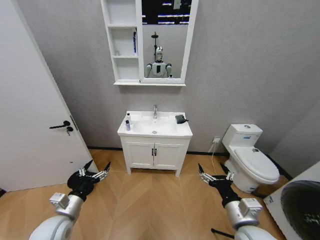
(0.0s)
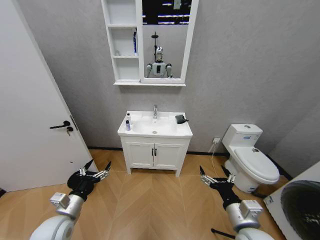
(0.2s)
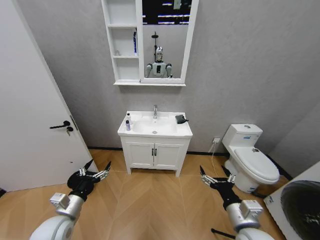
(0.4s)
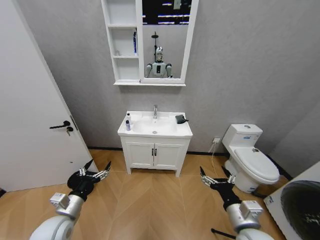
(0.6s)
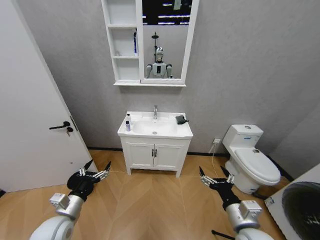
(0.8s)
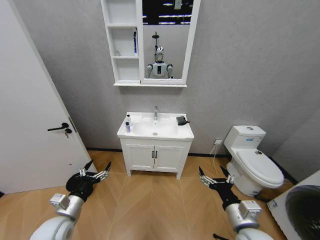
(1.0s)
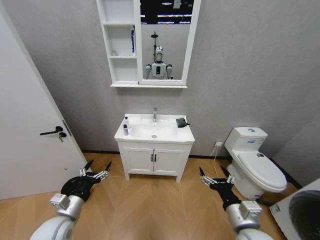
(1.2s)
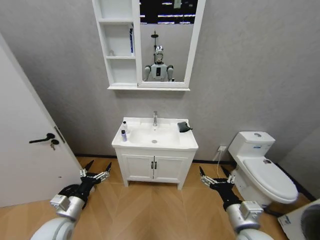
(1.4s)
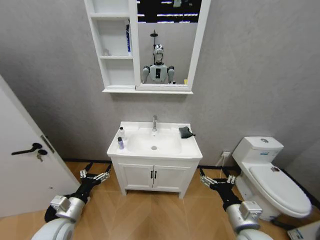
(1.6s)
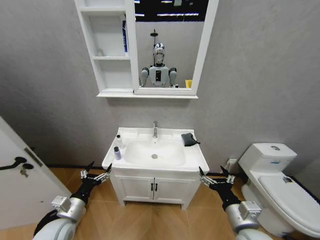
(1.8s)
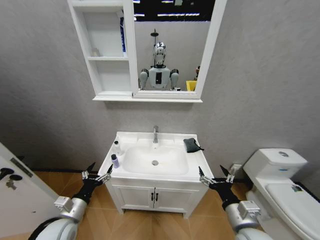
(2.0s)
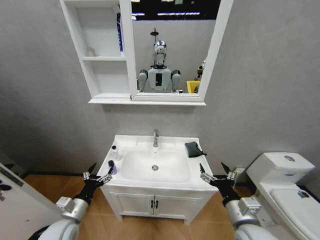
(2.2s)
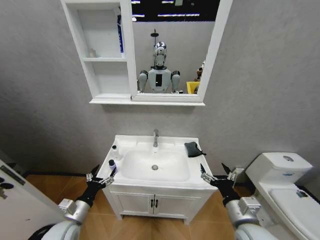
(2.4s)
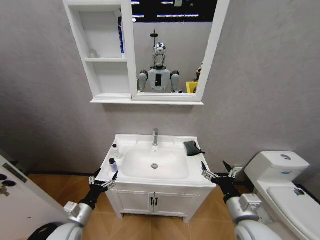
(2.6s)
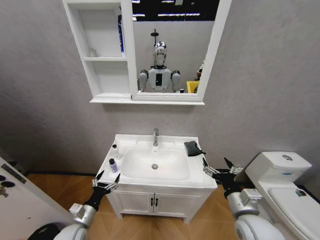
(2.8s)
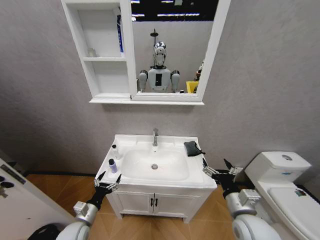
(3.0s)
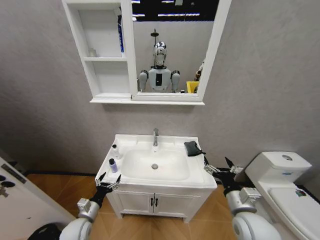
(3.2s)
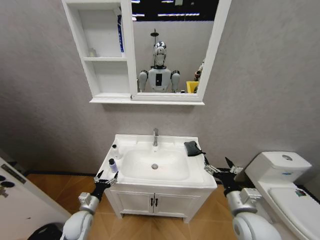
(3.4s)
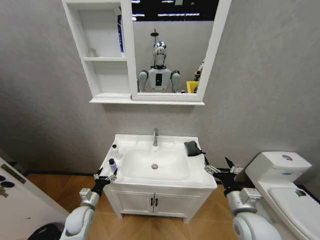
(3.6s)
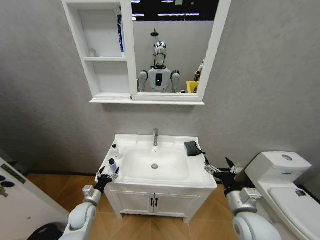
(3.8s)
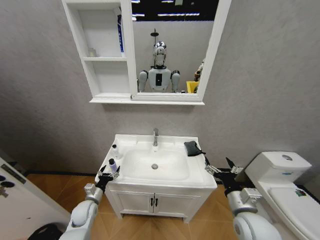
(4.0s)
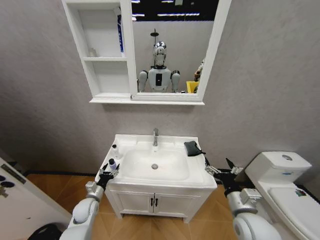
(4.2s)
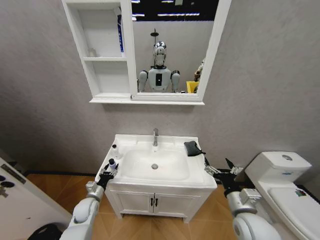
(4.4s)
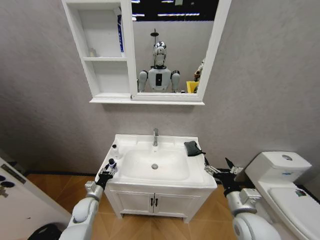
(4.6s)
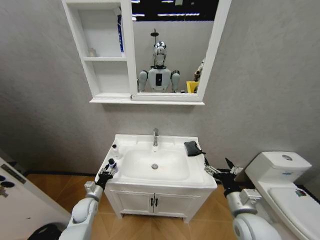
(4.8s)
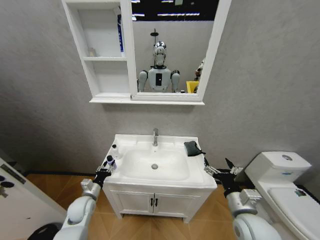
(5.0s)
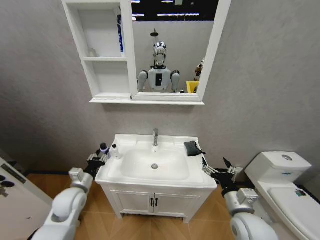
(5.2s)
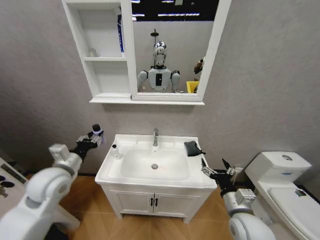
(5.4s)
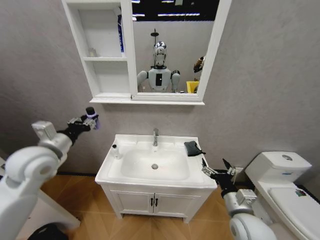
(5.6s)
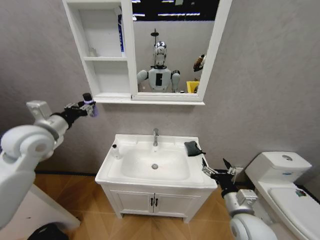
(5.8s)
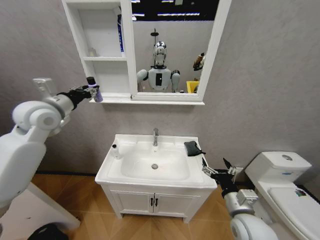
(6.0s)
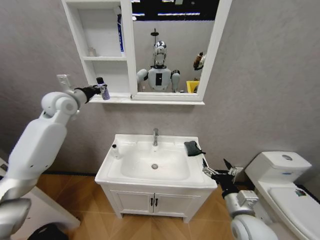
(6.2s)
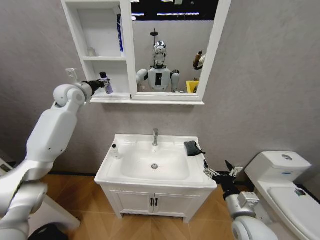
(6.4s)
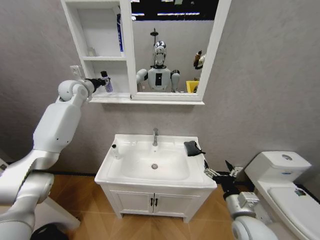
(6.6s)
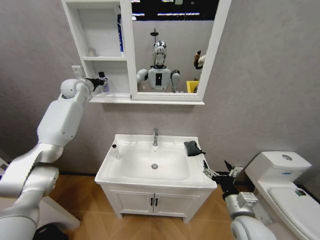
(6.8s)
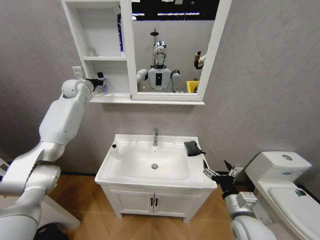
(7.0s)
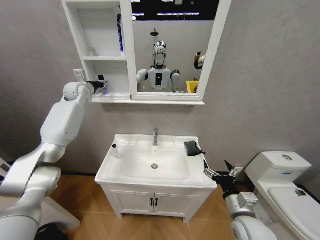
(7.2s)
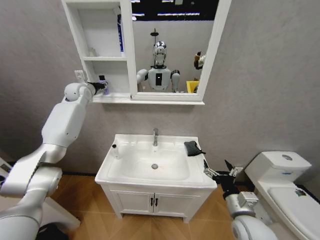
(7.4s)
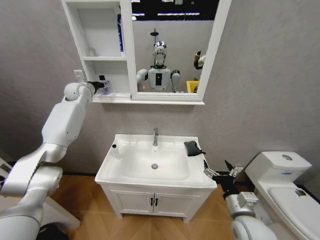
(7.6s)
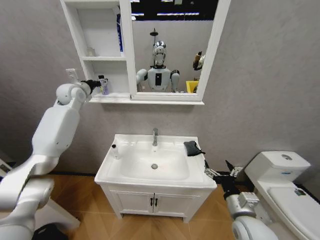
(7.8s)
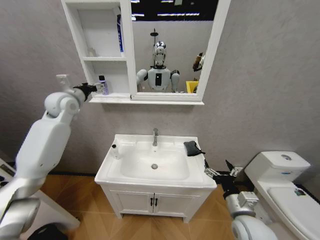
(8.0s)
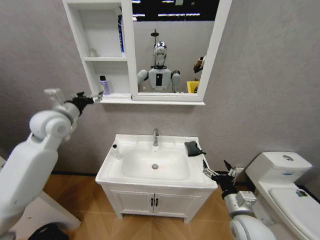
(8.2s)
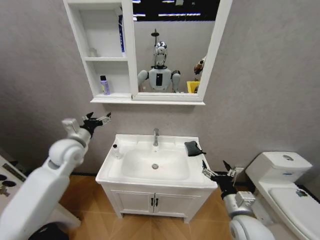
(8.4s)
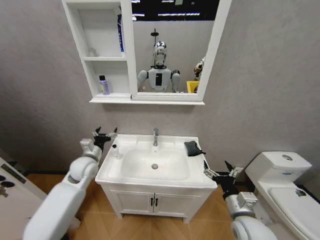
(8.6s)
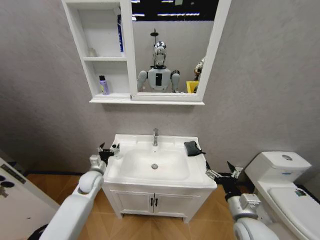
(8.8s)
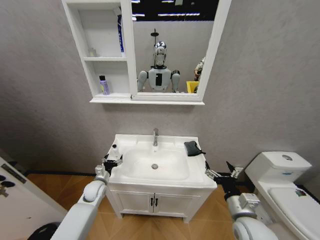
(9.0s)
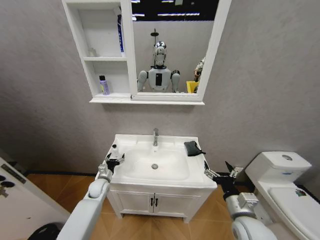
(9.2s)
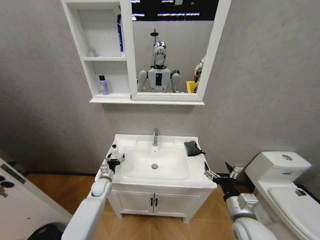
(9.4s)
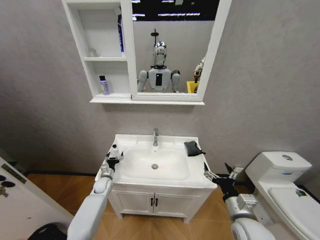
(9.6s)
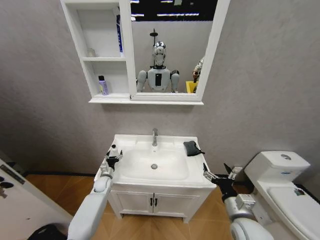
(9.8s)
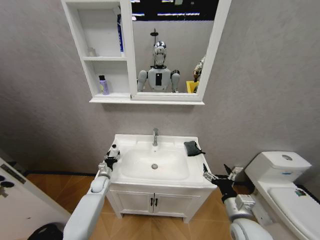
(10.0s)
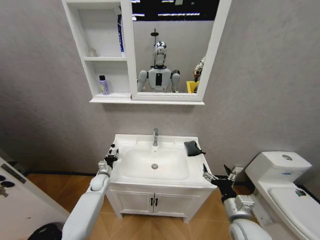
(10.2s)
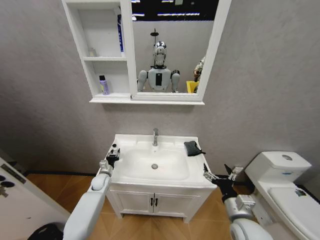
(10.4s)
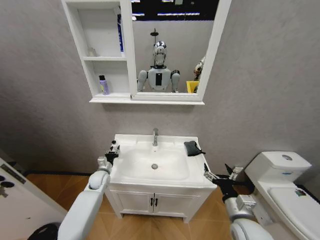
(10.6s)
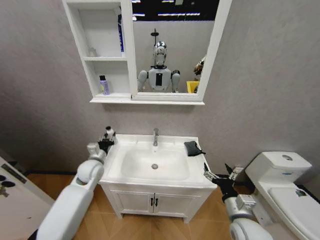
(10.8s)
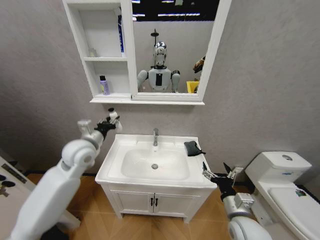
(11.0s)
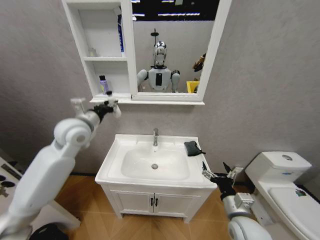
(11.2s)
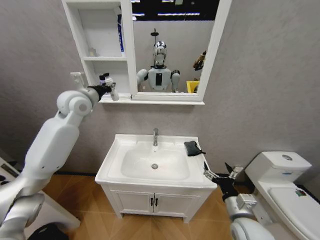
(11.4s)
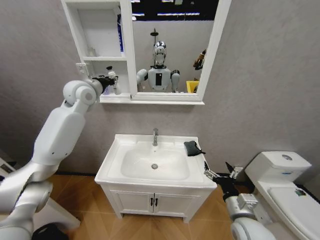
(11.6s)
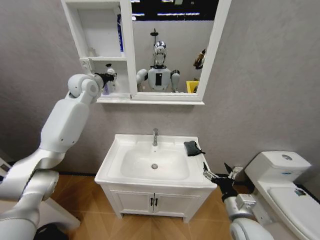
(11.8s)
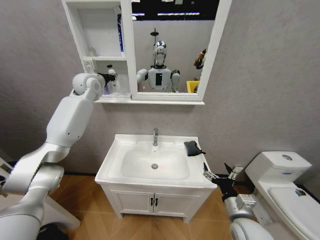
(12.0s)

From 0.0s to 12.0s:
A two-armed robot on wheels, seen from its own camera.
Task of the whole recording: Move facial cleanser and shampoo from washbasin to cabinet, then wipe washbasin with towel.
From 1.6s to 3.0s: The left gripper is displaced downward by some 10 cm.
From 3.0s to 4.4s: The left gripper heads forward, covering approximately 10 cm, and closes.
From 4.4s to 6.0s: The left gripper heads upward, covering about 40 cm, and closes its fingers.
From 6.0s to 7.6s: The left gripper is displaced forward by roughly 20 cm, and opens.
From 7.6s to 9.0s: The left gripper heads downward and backward, covering approximately 50 cm, and opens up.
From 9.0s to 10.4s: The left gripper is displaced forward by about 5 cm, and closes up.
From 10.4s to 12.0s: The left gripper shifts roughly 50 cm upward.

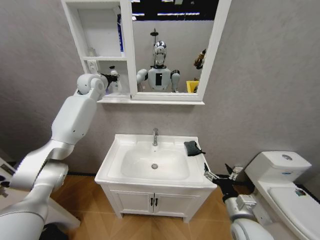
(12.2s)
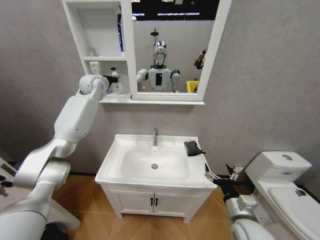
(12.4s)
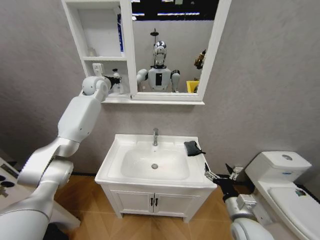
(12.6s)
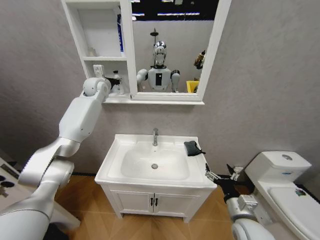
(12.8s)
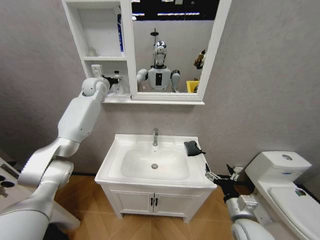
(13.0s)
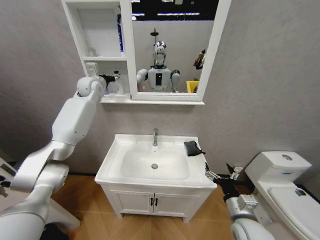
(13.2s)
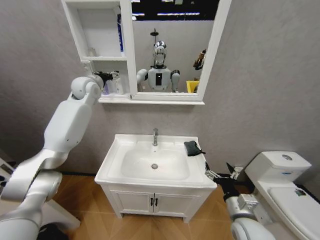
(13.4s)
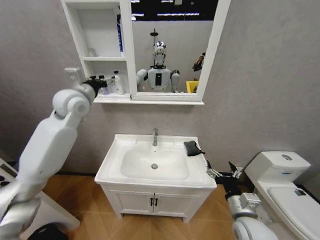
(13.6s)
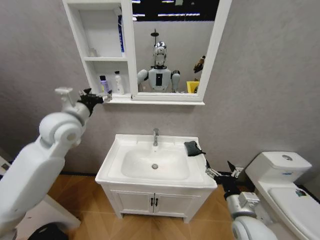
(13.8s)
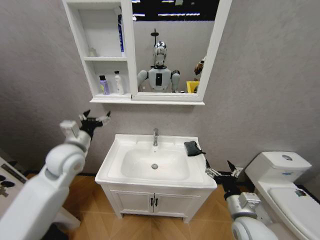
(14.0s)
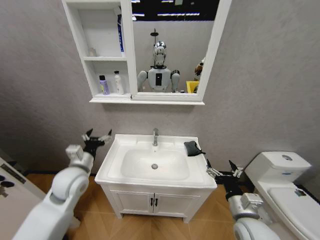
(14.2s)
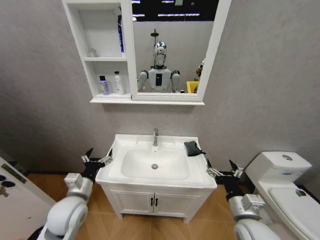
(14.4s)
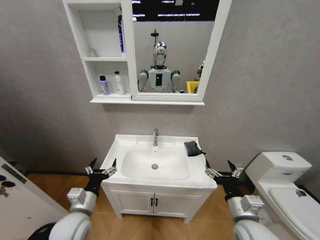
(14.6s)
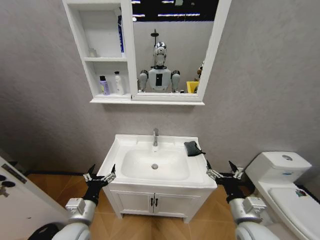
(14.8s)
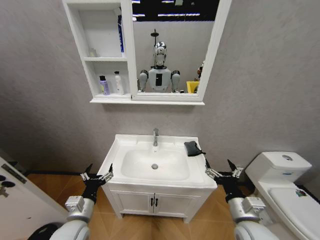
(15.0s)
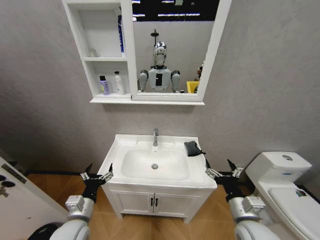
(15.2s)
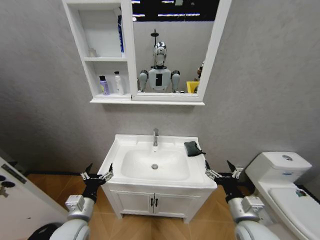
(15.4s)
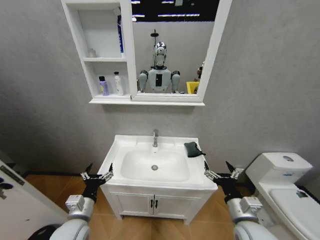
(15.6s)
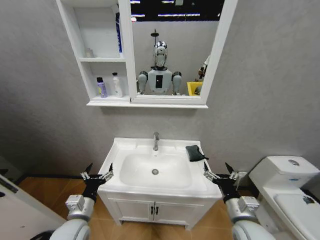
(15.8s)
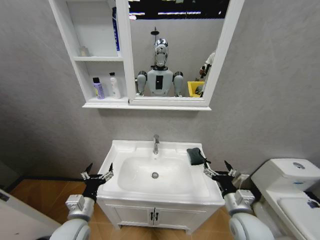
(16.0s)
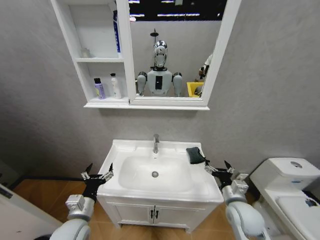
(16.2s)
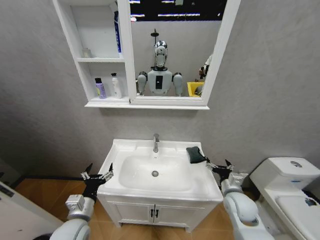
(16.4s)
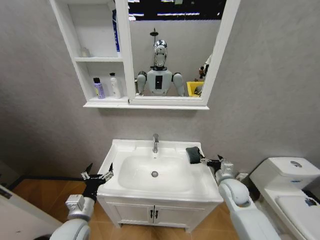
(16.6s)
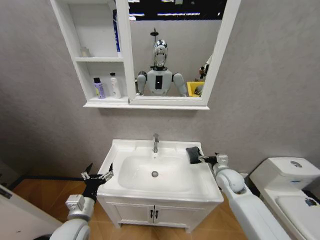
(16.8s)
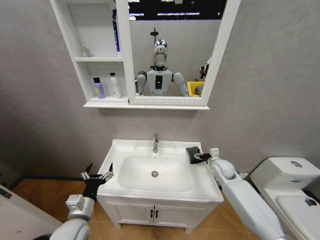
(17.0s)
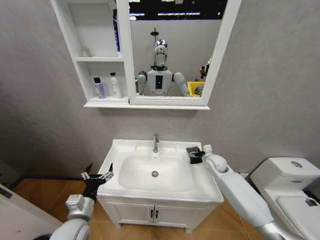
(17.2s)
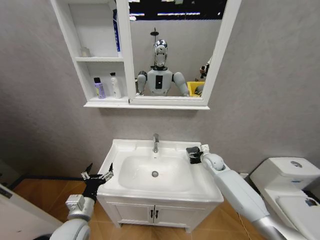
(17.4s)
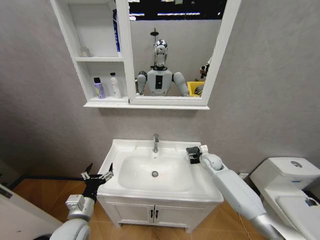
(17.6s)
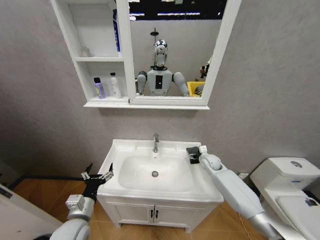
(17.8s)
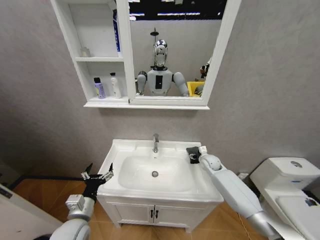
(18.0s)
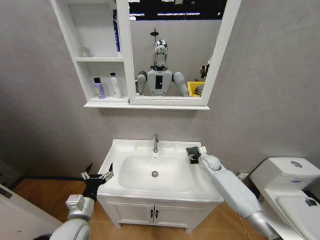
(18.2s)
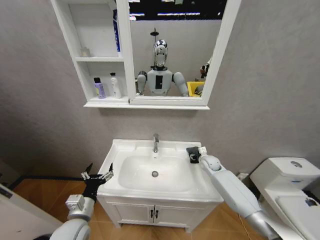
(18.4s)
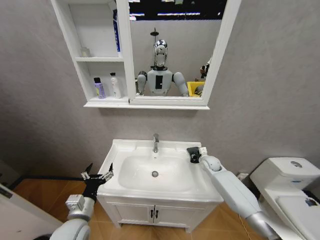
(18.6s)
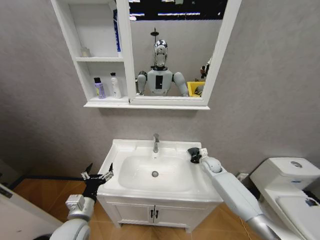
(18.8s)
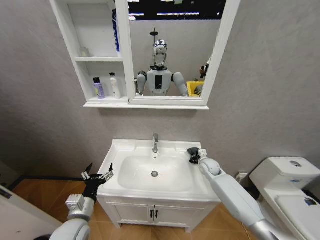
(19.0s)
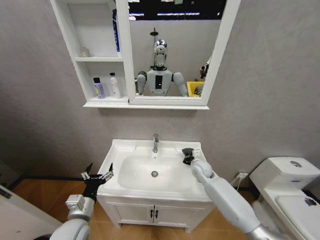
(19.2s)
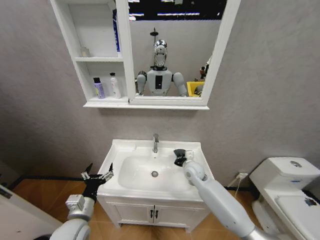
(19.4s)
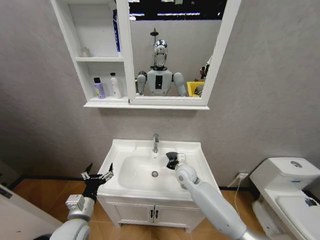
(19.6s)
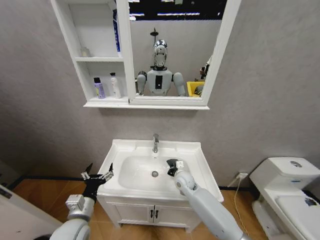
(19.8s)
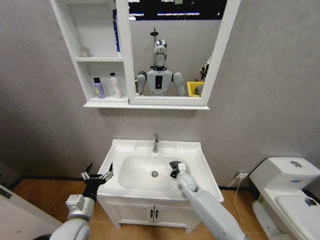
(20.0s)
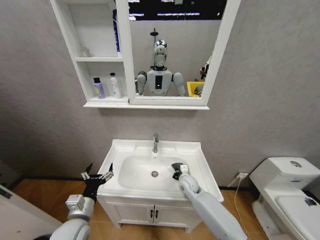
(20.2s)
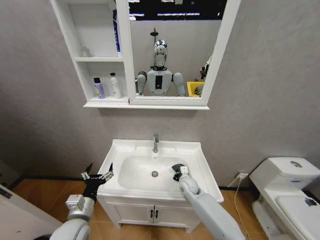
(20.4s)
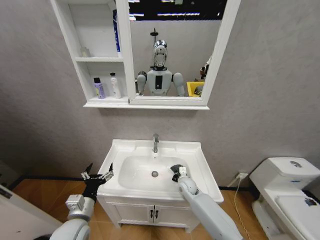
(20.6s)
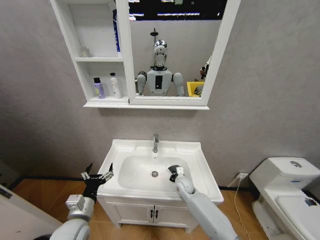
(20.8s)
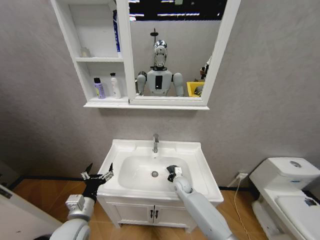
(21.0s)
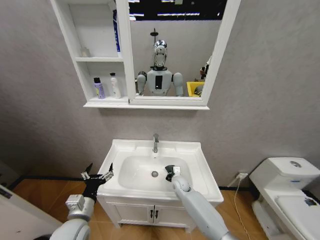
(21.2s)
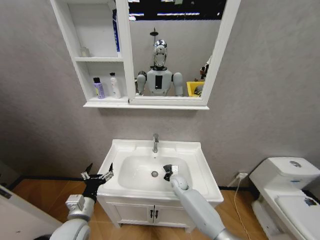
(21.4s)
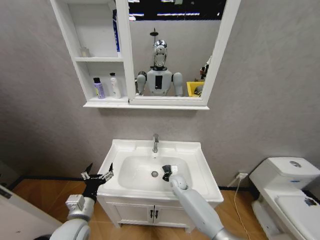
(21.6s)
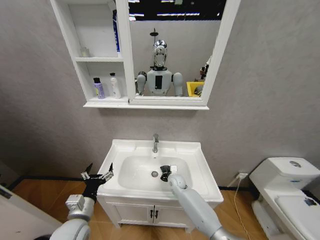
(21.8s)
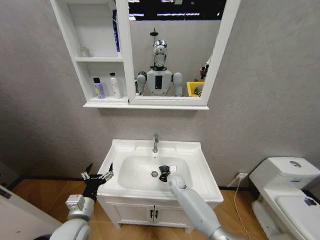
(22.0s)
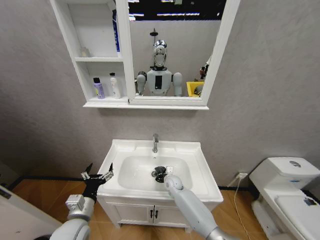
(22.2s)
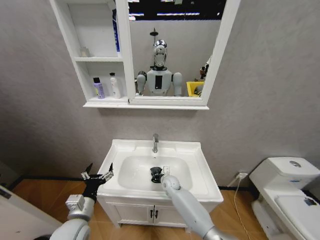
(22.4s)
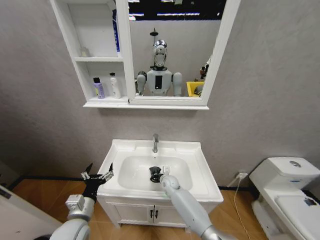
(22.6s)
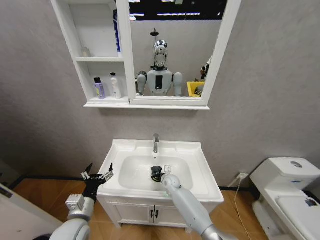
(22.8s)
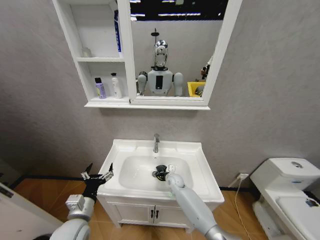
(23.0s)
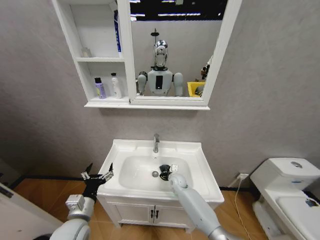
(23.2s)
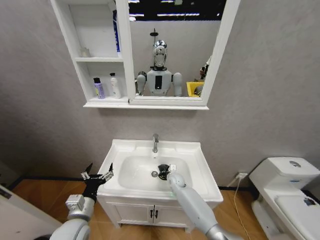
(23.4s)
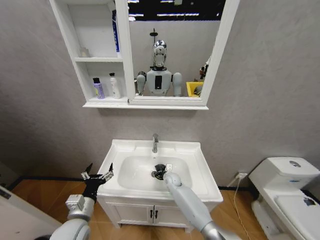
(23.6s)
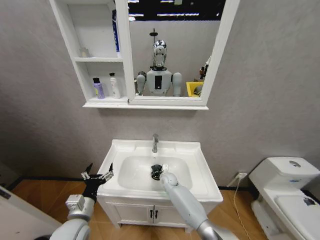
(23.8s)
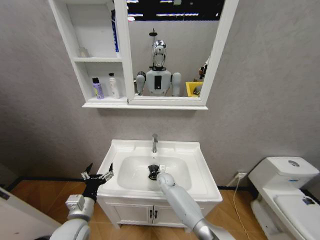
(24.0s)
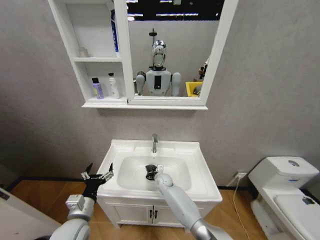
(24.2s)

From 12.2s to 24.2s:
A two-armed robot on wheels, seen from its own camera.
Task of the whole recording: Move facial cleanser and shampoo from washbasin to cabinet, then wipe washbasin with towel.
From 12.2s to 13.8s: The left gripper moves backward, approximately 20 cm, and opens.
From 13.8s to 15.2s: The left gripper travels downward and backward by approximately 35 cm.
From 15.2s to 16.6s: The right gripper is displaced forward by about 15 cm.
From 16.6s to 18.2s: The right gripper travels forward by roughly 15 cm.
From 18.2s to 19.8s: The right gripper heads to the left and backward, covering roughly 20 cm, and closes its fingers.
From 19.8s to 21.2s: The right gripper moves downward, roughly 10 cm.
From 21.2s to 22.6s: The right gripper heads to the left, covering about 5 cm.
From 22.6s to 24.2s: The grippers stay close to where they were, moving slightly.
